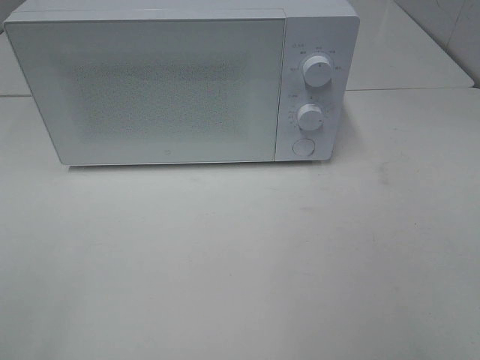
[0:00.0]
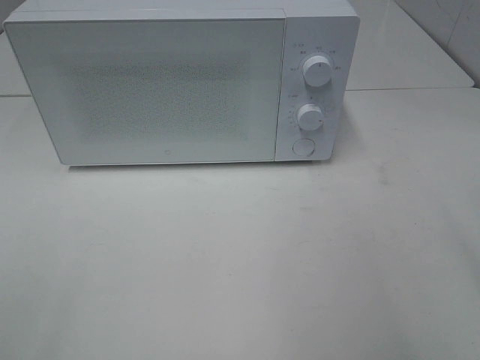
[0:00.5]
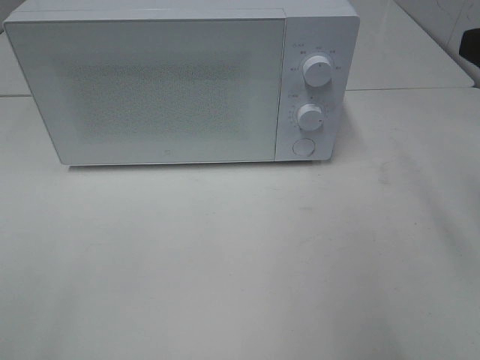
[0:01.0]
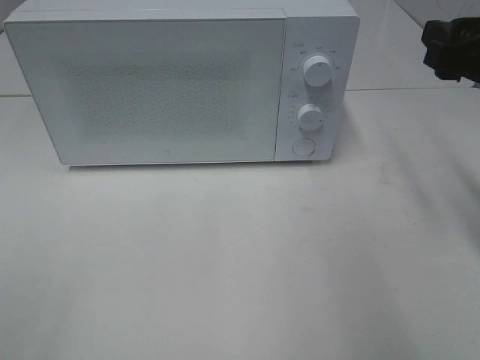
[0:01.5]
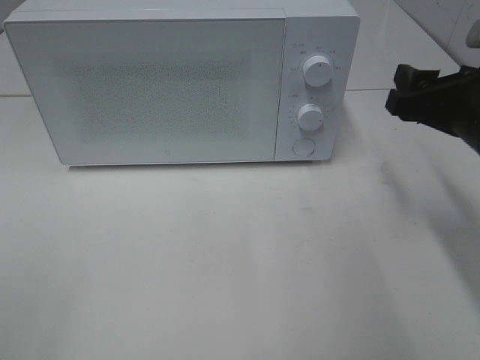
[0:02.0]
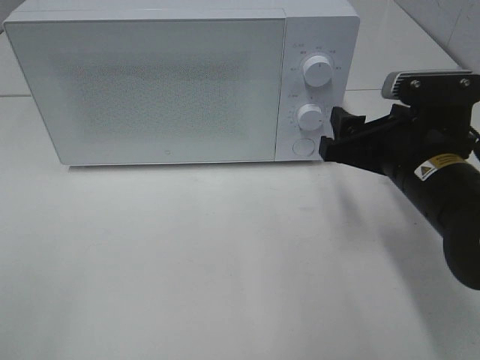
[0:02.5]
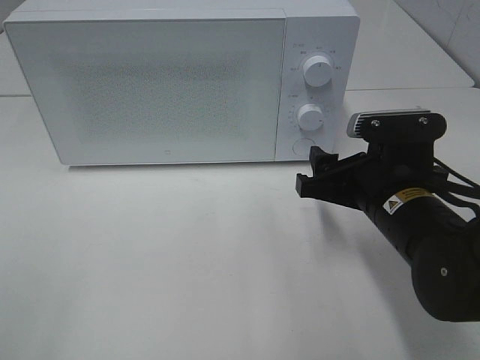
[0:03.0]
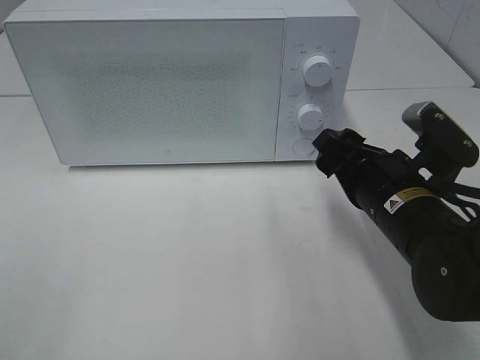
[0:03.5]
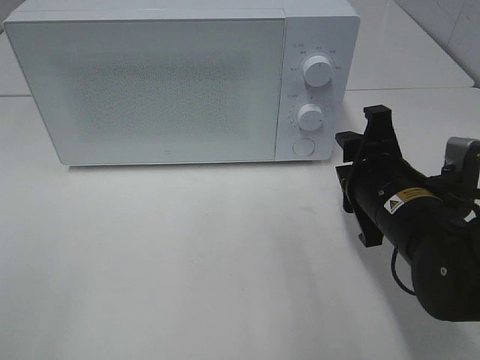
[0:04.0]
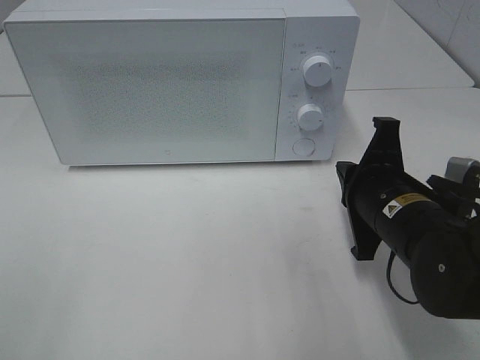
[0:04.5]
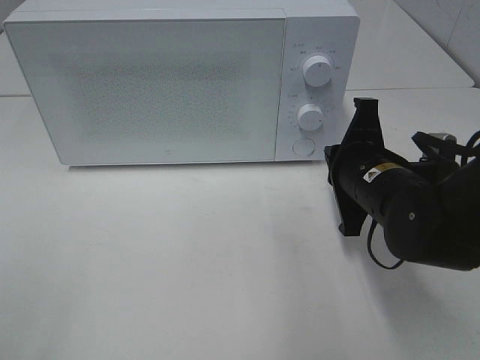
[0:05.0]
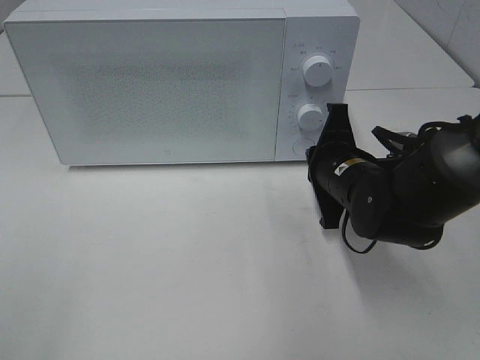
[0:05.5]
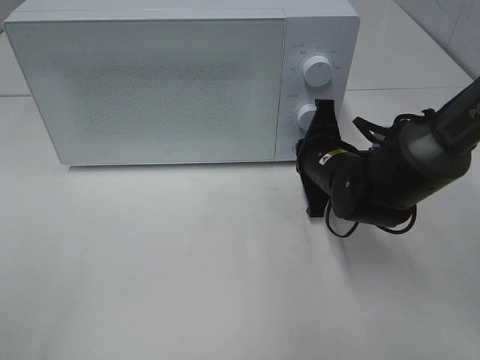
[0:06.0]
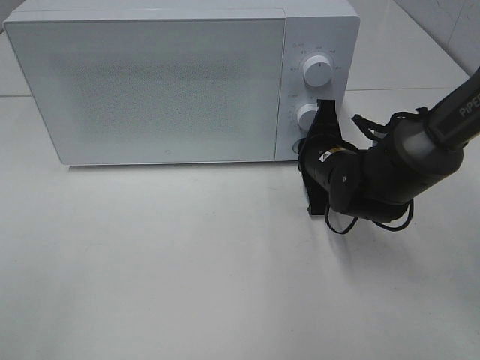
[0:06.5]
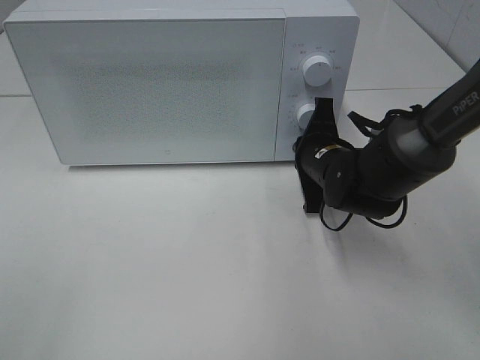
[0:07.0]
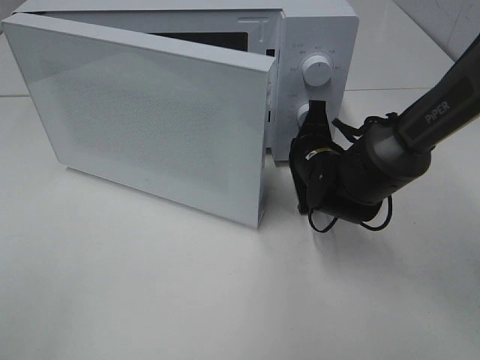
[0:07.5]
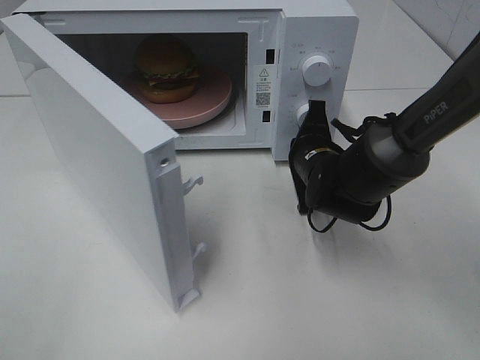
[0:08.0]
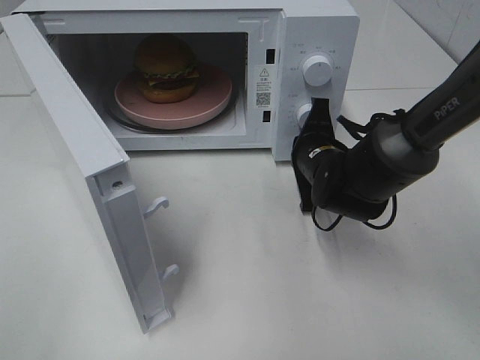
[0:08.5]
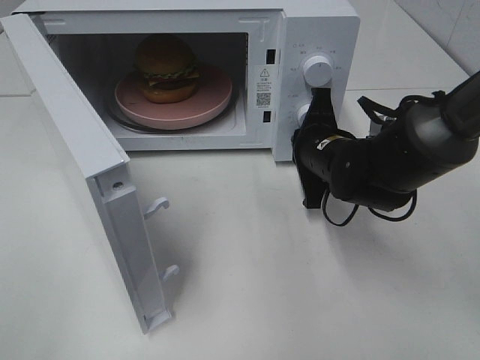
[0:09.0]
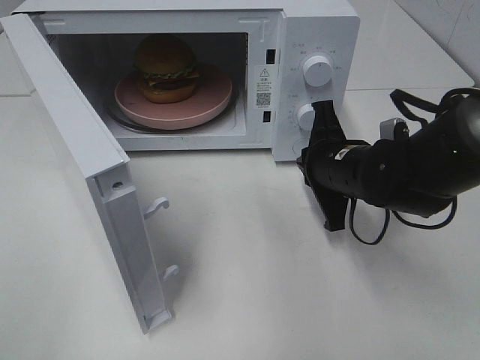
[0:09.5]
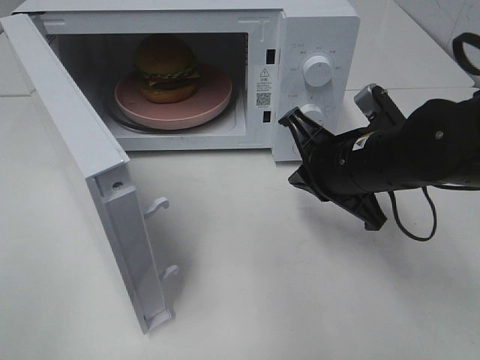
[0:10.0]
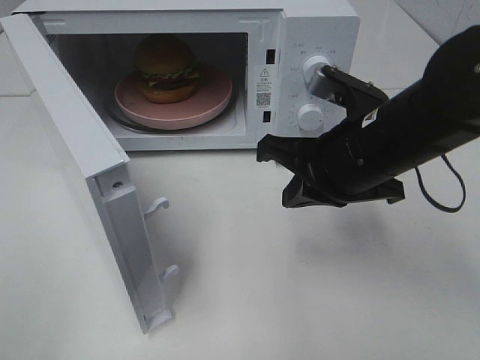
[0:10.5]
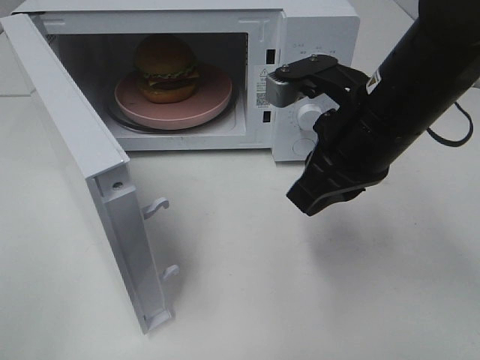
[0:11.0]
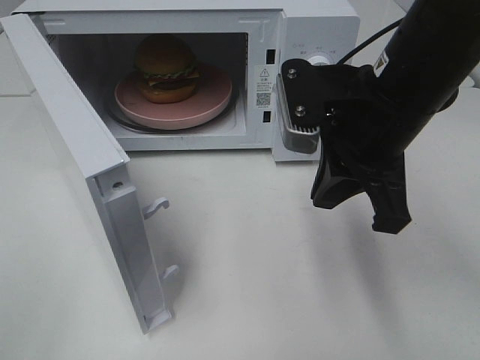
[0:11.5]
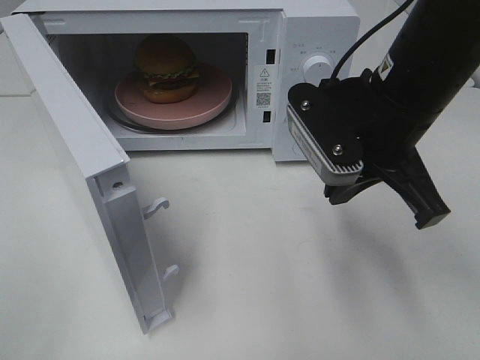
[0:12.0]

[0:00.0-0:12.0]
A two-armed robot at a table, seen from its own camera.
Task of the whole recording: Heat the burger.
Step, 0:00.0 to 0:09.0: Right hand: press the switch.
0:00.0 to 0:02.0: The right gripper shifts some 25 cm forward and downward.
0:02.0 to 0:04.0: The right gripper is displaced to the left and downward by some 10 cm.
0:04.0 to 0:06.0: The right gripper is displaced forward by roughly 10 cm, and closes up.
0:08.0 to 0:10.0: The right gripper goes some 10 cm backward and upward.
0:10.0 to 0:12.0: The right gripper travels upward by approximately 10 cm.

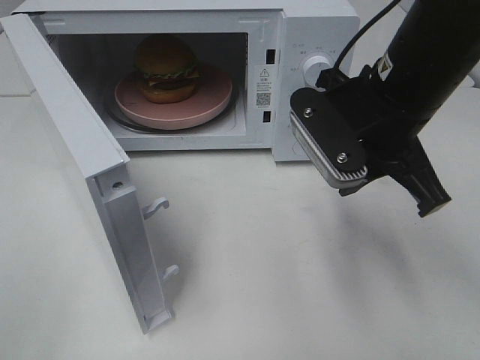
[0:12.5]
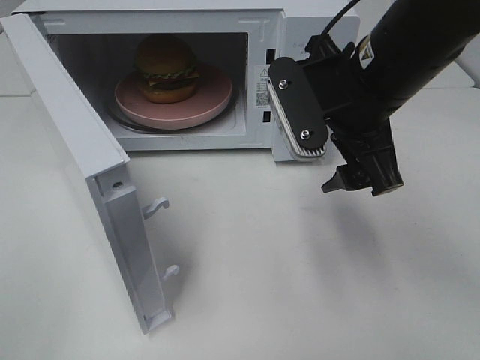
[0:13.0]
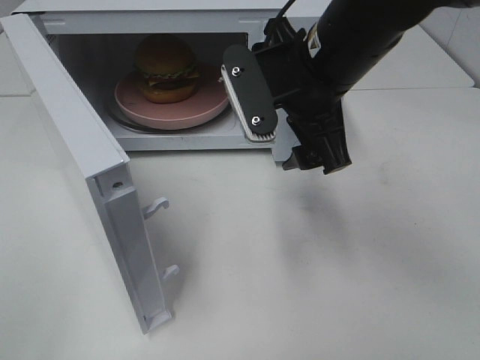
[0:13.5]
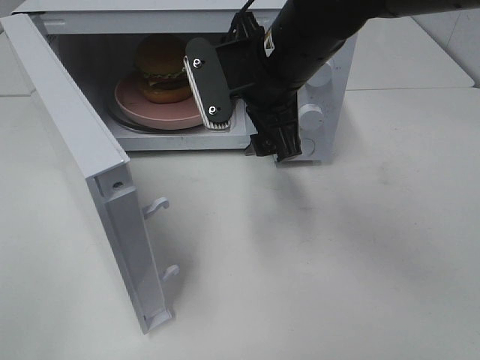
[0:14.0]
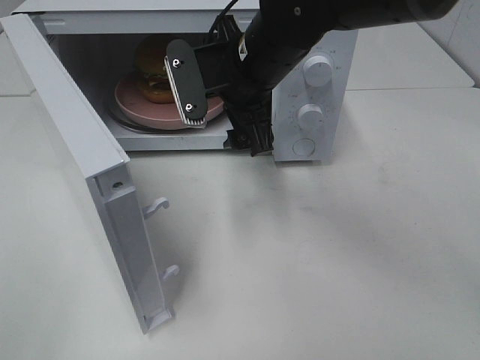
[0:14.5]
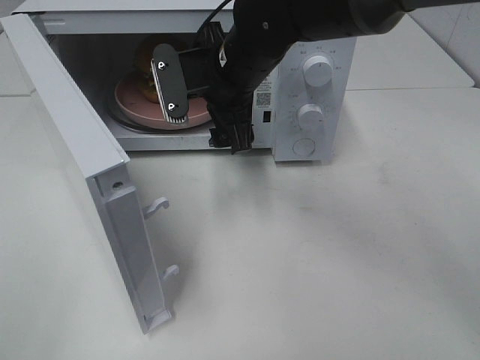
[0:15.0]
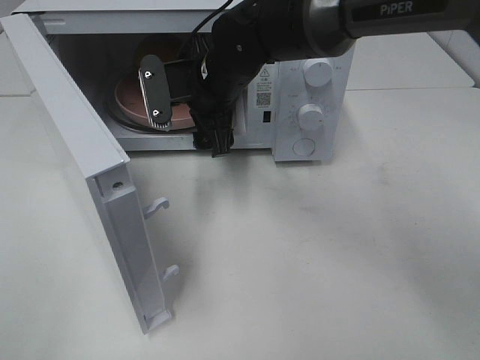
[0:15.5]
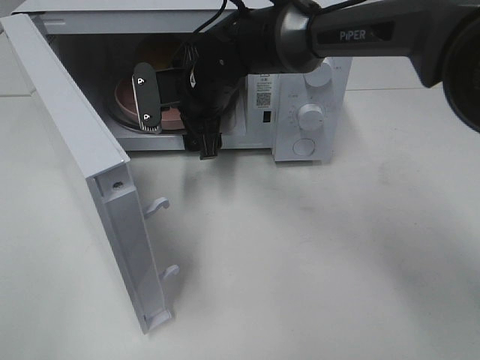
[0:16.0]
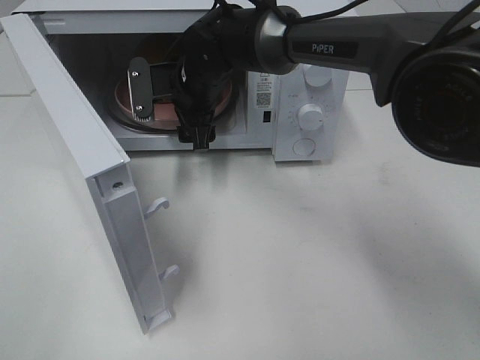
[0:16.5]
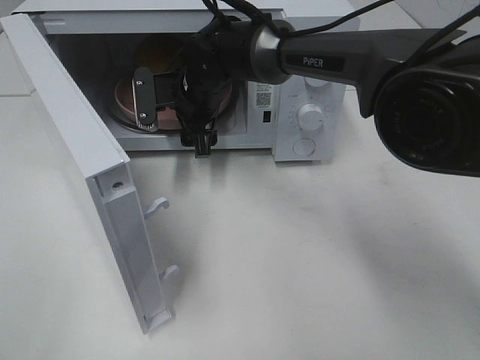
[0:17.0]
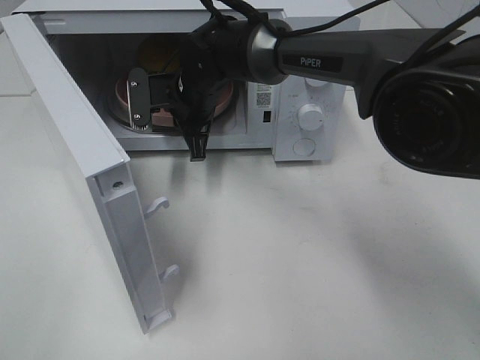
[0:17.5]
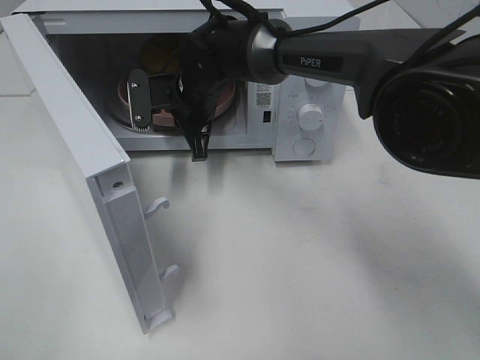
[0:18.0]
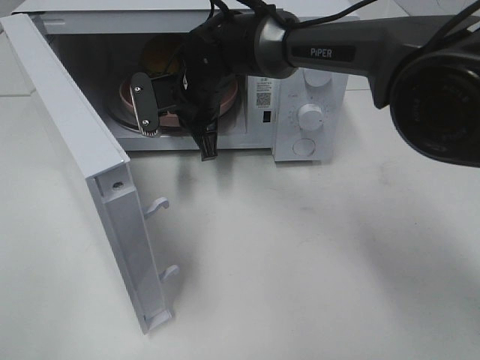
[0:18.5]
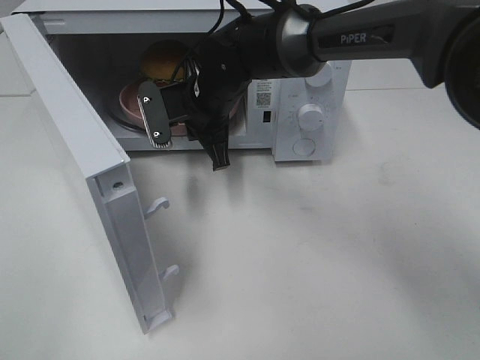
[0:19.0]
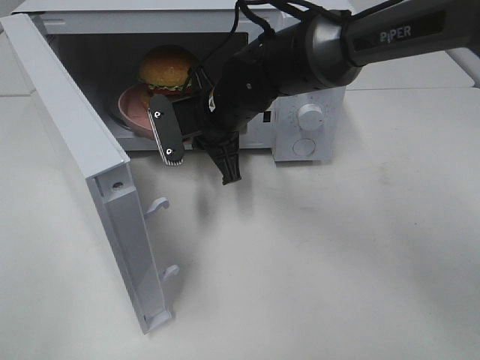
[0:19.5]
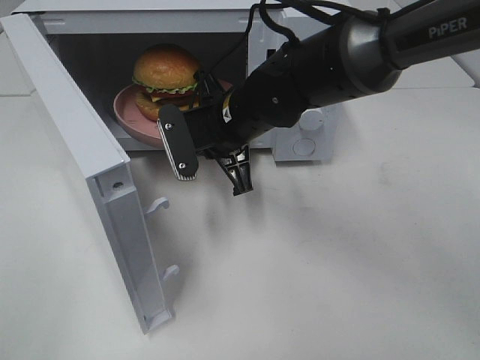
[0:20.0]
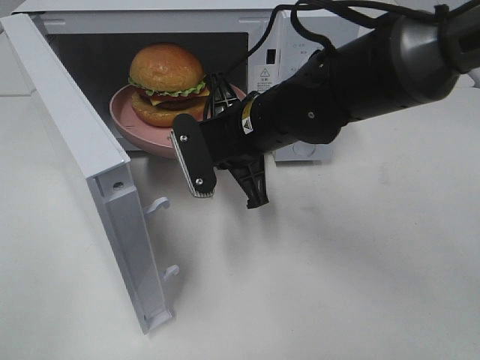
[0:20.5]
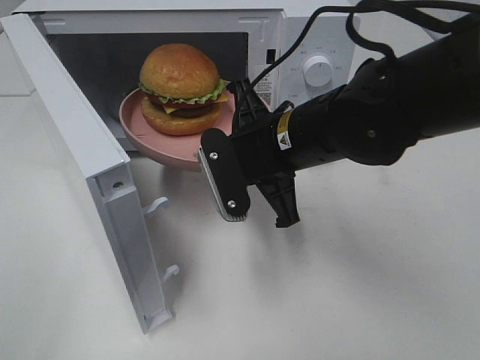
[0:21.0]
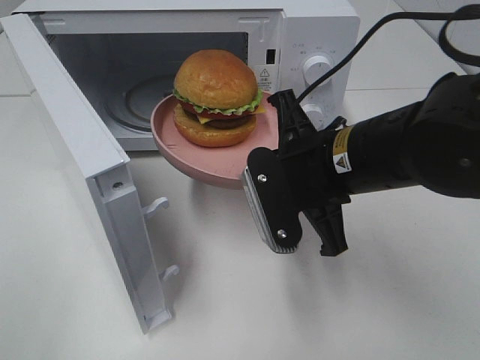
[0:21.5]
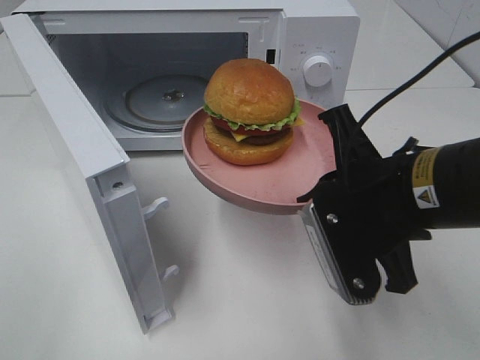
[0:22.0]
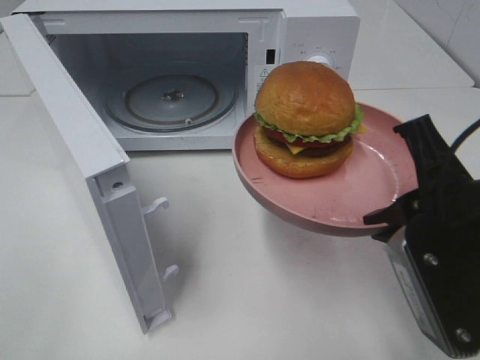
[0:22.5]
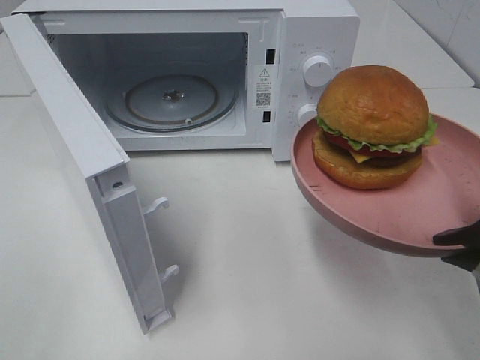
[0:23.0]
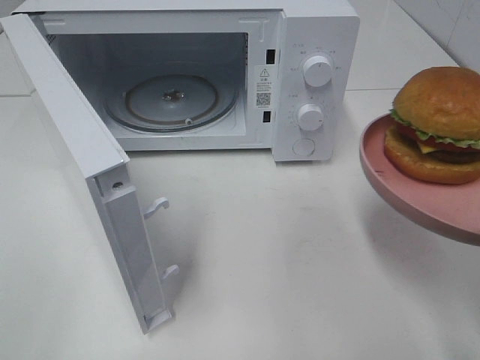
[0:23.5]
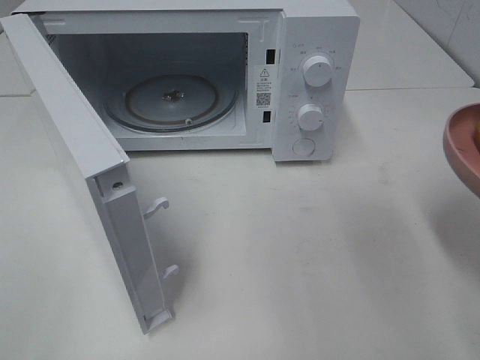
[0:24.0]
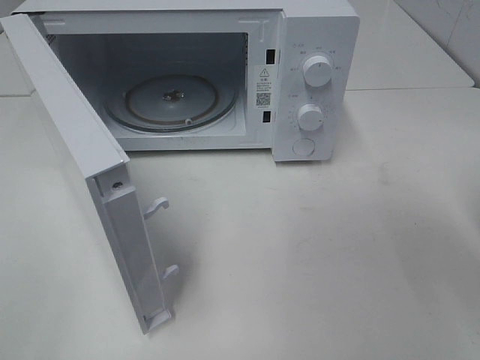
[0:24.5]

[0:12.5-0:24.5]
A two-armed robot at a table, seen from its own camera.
Task of the whole recording: Heat the burger.
Step, 0:12.5 to 0:17.5: Right hand: grab the plate with the hamburger.
0:12.5 to 0:14.5: The right gripper moves to the left and forward, some 15 cm, and opens its fingers.
0:14.5 to 0:16.5: The right gripper travels forward, to the left and downward by roughly 15 cm.
0:16.5 to 0:18.5: The right gripper closes.
0:18.5 to 0:20.5: The right gripper travels backward and to the right by some 15 cm.
0:20.5 to 0:22.5: The right gripper shifts about 25 cm backward and to the right.
0:22.5 to 0:24.5: The right gripper shifts roughly 10 cm to the right.

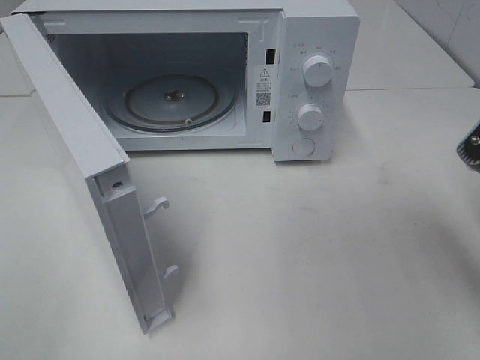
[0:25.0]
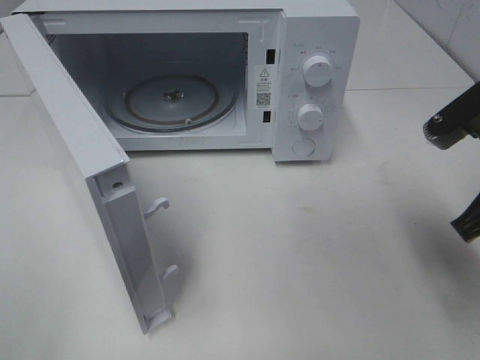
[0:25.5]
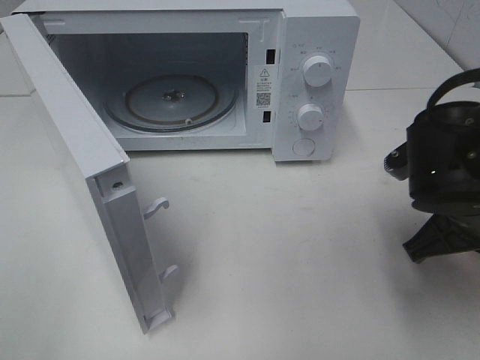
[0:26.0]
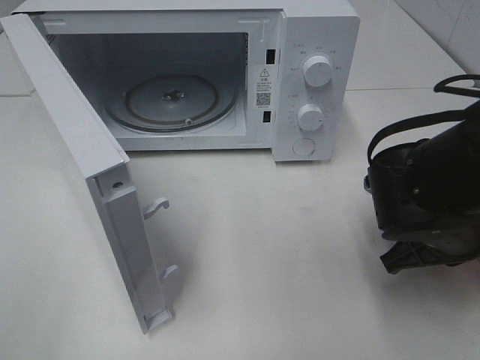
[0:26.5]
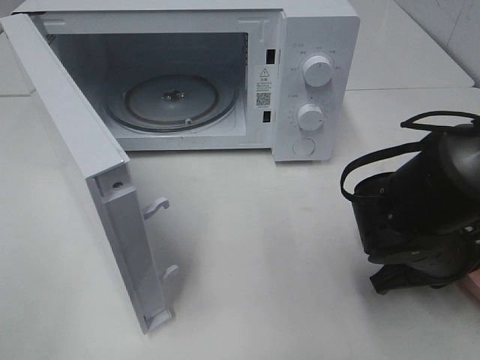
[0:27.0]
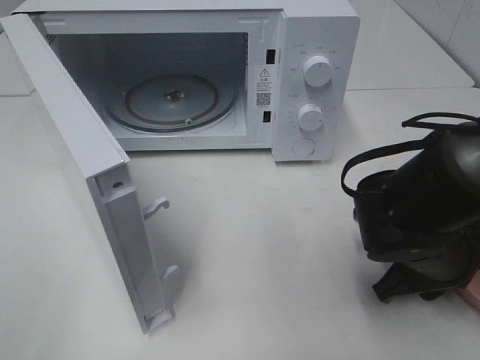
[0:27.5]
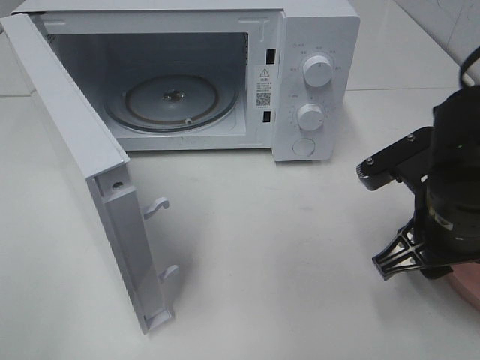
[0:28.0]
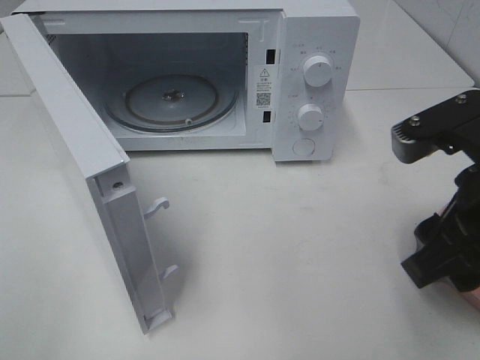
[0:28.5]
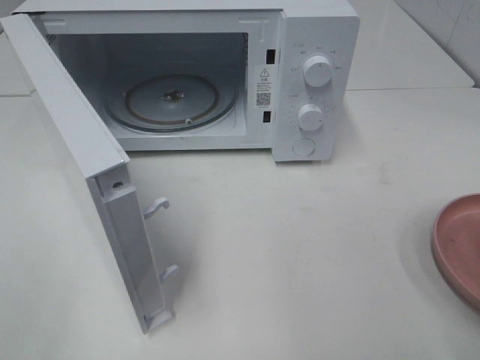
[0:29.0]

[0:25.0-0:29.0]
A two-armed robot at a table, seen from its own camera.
Task of the whole recording: Heat the burger.
Step, 0:25.0 to 0:27.5: Right hand: place the plate on the table.
0:25.0 to 0:27.0: The right gripper travels downward by about 15 cm.
0:27.0 to 0:29.0: The right gripper moves upward and backward, roughly 25 cm, and opens its fingers.
